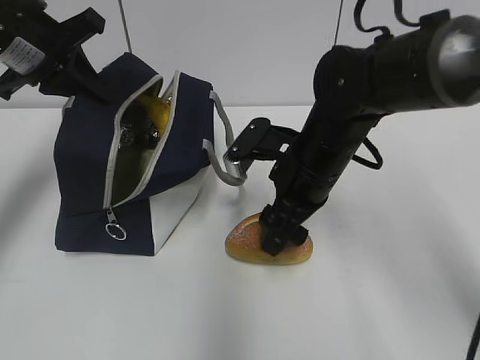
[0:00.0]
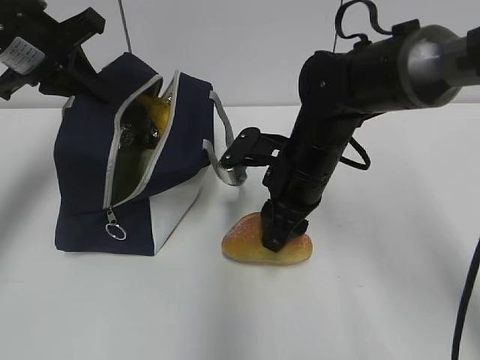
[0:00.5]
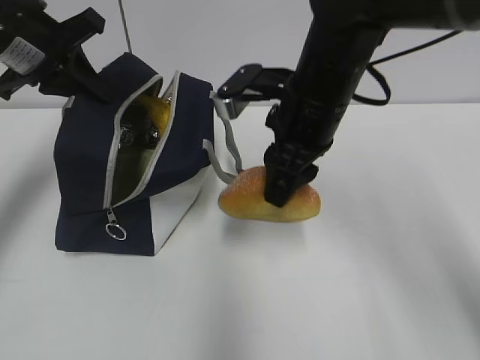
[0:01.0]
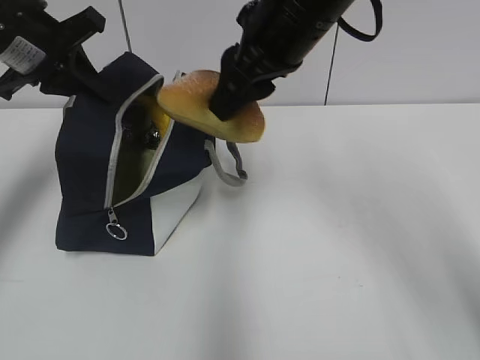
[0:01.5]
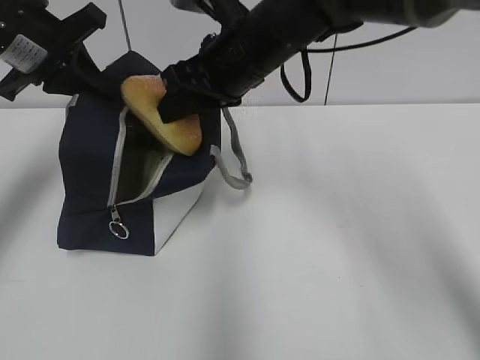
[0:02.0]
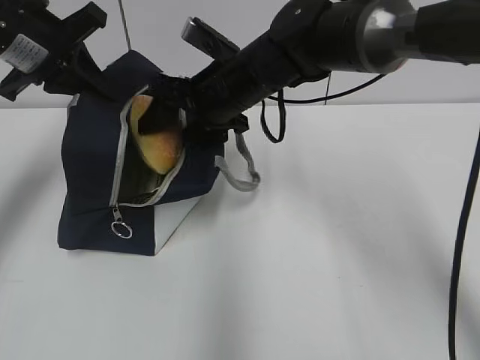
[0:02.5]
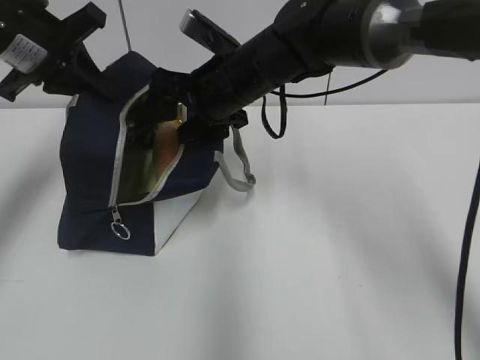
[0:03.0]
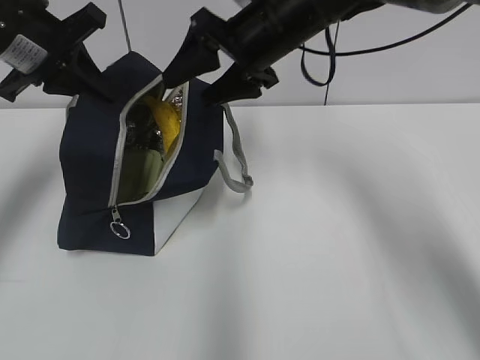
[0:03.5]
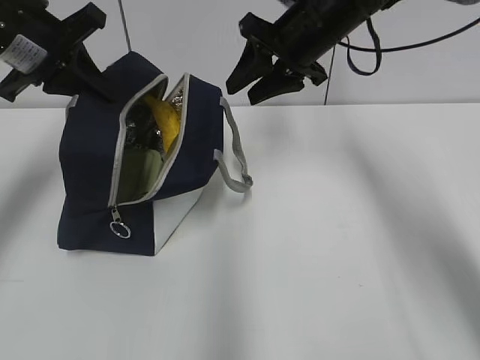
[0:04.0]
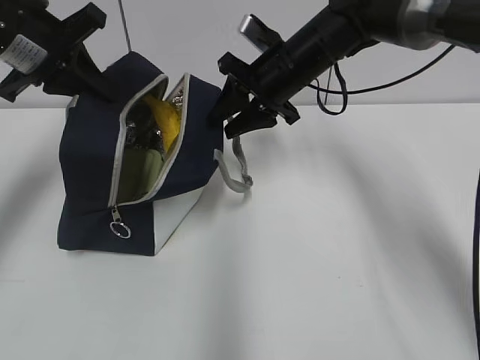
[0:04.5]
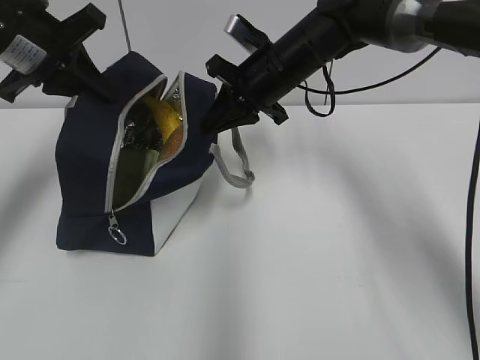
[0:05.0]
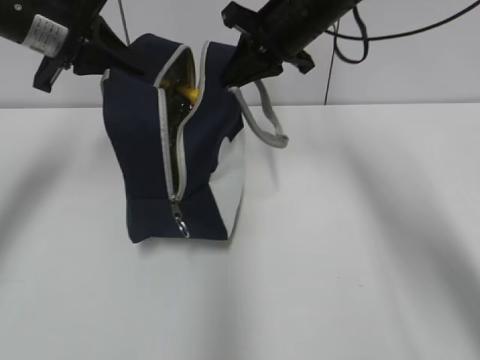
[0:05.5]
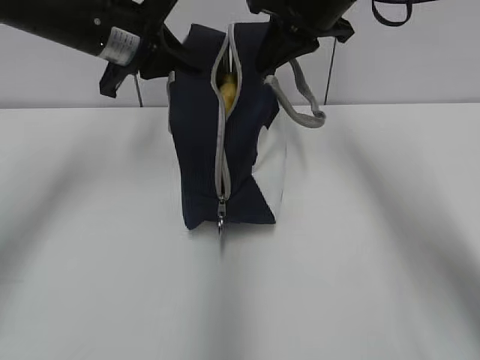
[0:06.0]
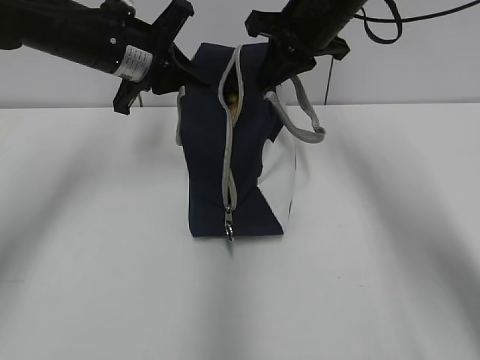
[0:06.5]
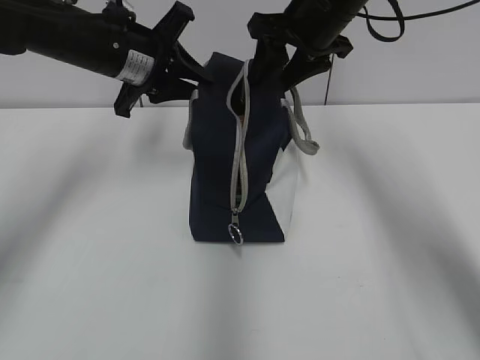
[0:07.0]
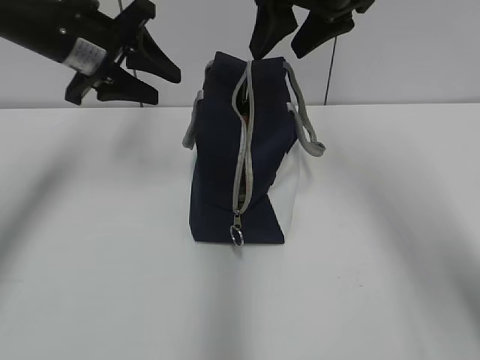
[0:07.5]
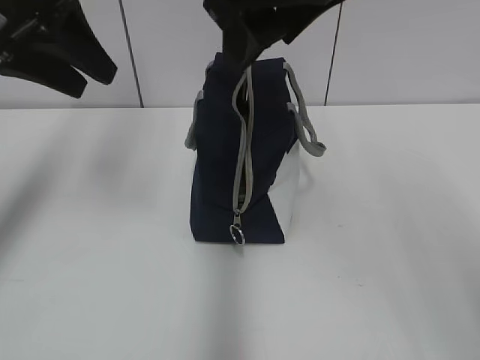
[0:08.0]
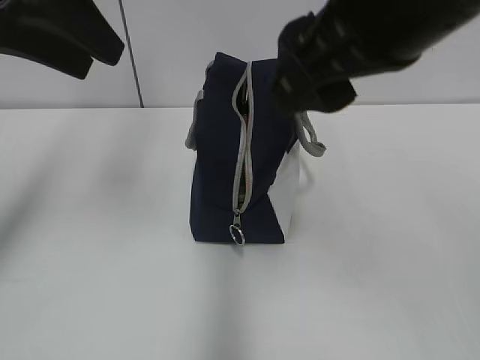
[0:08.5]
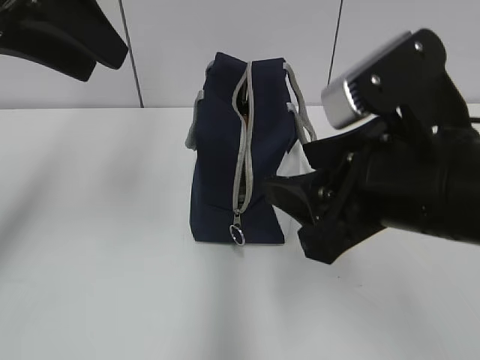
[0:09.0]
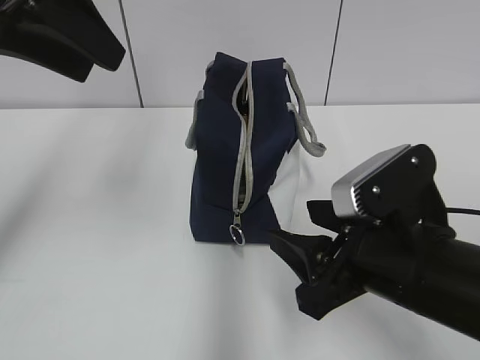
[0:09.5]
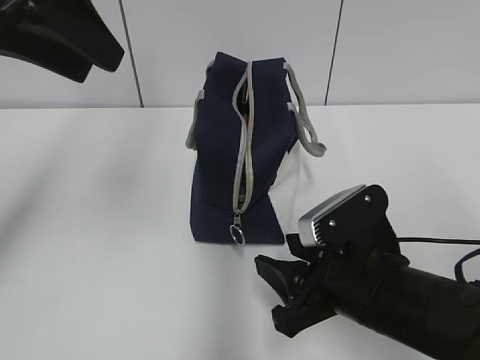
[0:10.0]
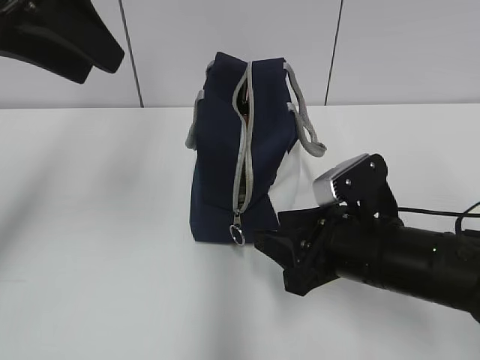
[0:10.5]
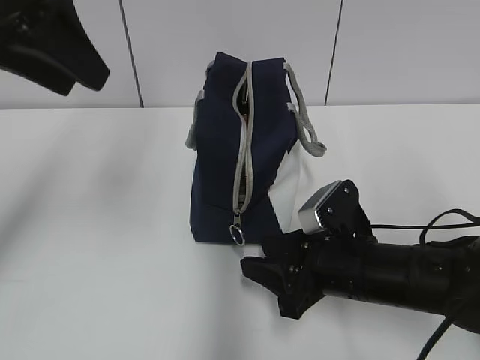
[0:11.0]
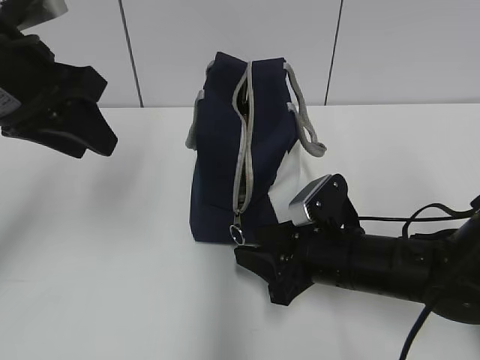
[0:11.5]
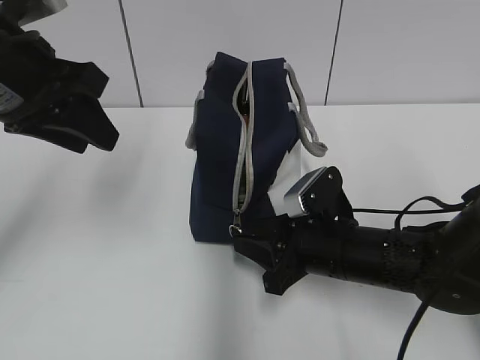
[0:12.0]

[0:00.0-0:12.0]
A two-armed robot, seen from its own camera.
0.0 to 2.0 s: The right gripper travels upward, to the left and forward by approximately 15 cm, and closes.
2.0 to 4.0 s: The right gripper shifts some 10 cm to the right and forward, and opens, then closes once more.
4.0 to 6.0 s: The right gripper is displaced upward by roughly 5 cm, and closes. Meanwhile the left gripper goes approximately 10 cm to the right.
6.0 to 8.0 s: The right gripper travels backward and upward by approximately 15 cm, and opens. Meanwhile the left gripper travels backward, upward and to the left by about 10 cm, and opens.
8.0 to 10.0 s: The left gripper changes place by roughly 5 cm. The right gripper goes about 25 cm downward.
10.0 to 12.0 s: The right gripper moves forward, approximately 10 cm, while the left gripper shifts approximately 10 cm downward.

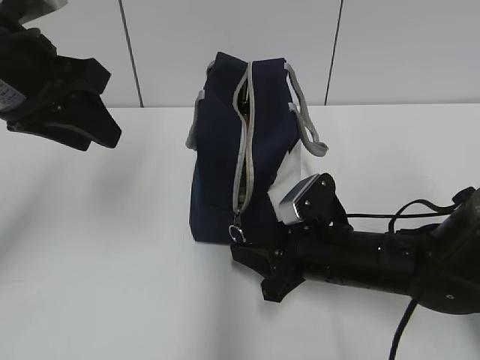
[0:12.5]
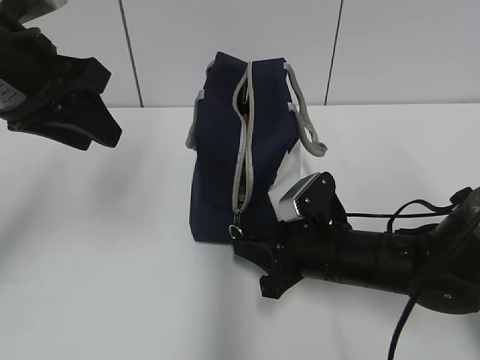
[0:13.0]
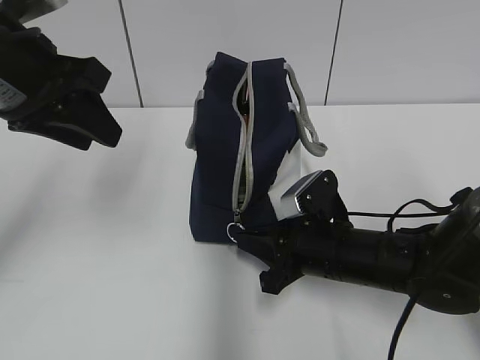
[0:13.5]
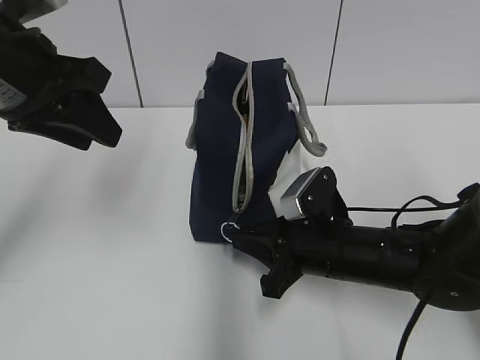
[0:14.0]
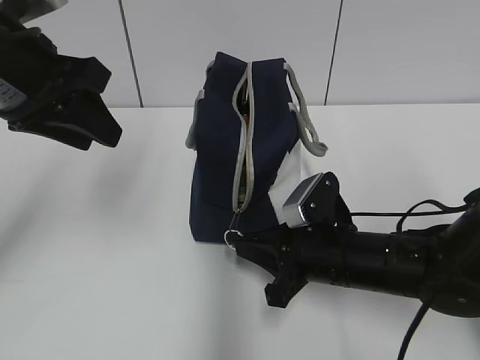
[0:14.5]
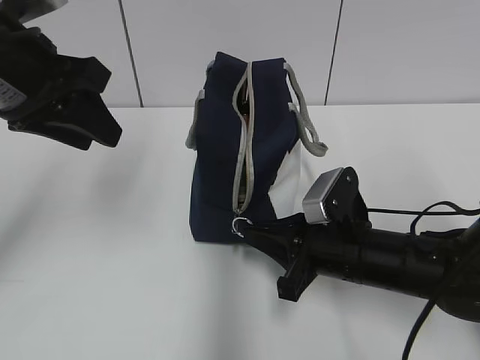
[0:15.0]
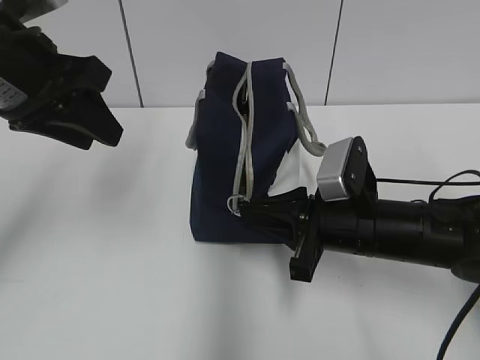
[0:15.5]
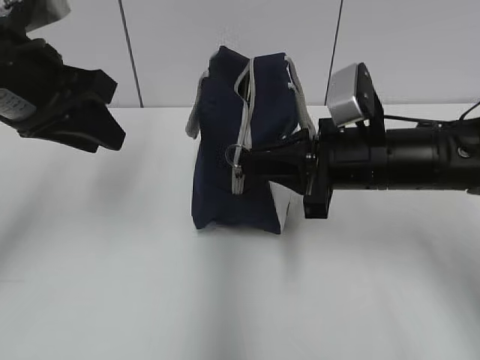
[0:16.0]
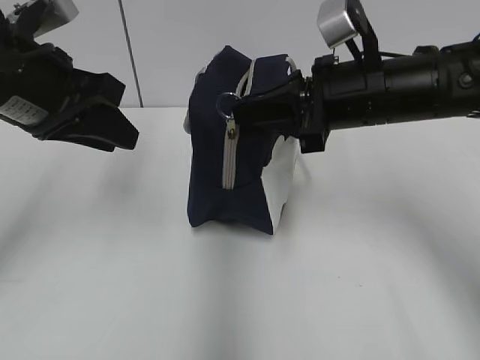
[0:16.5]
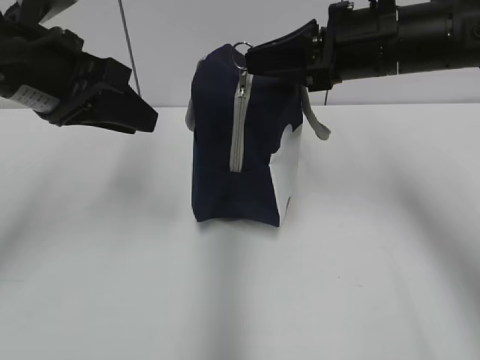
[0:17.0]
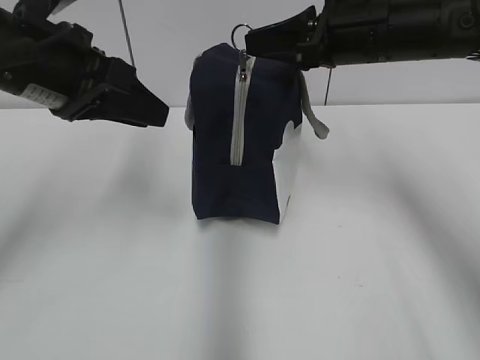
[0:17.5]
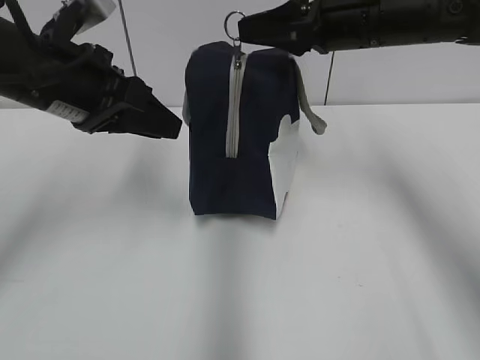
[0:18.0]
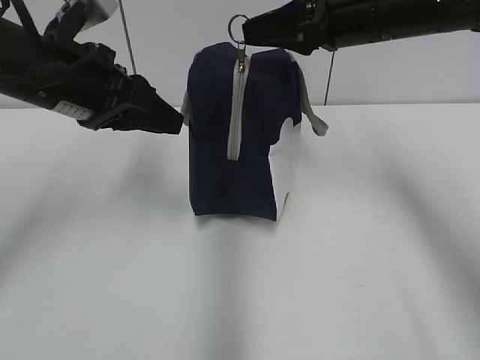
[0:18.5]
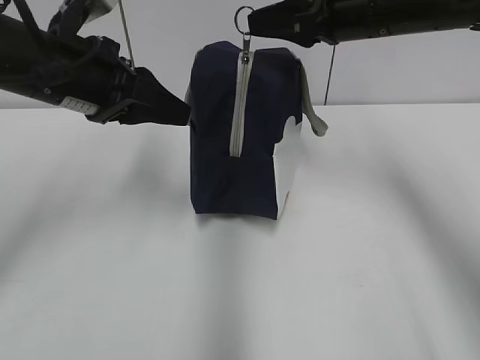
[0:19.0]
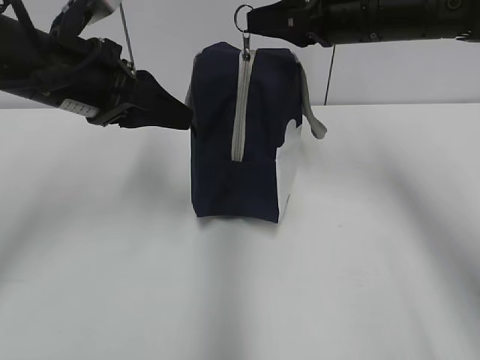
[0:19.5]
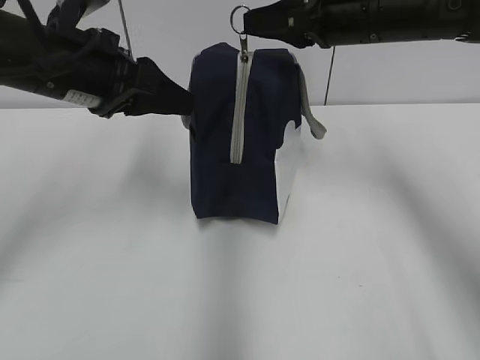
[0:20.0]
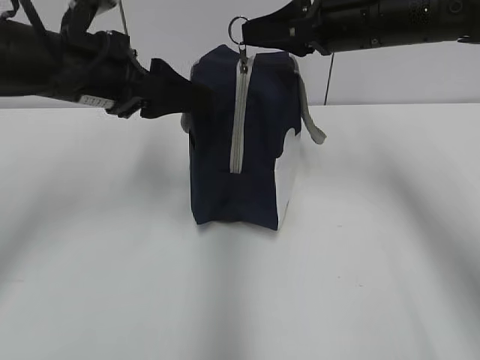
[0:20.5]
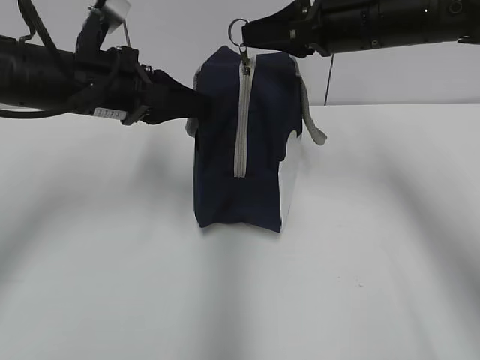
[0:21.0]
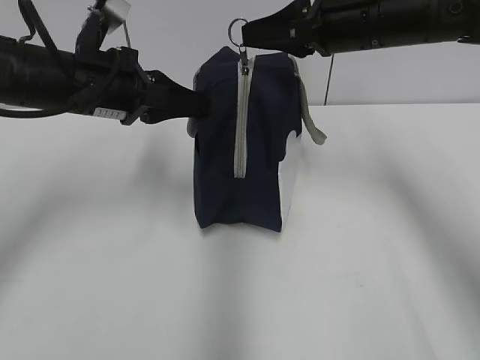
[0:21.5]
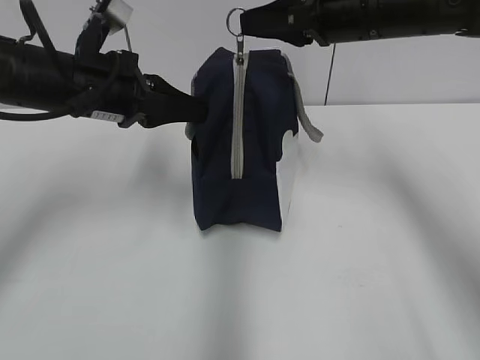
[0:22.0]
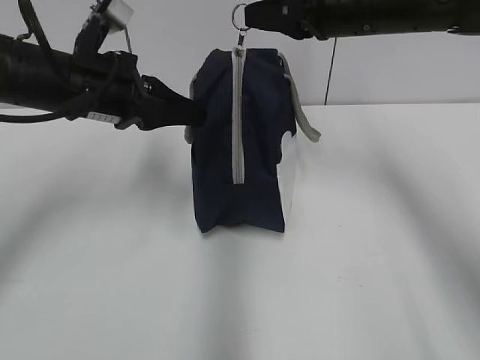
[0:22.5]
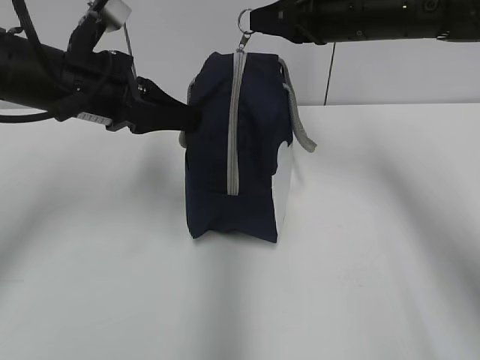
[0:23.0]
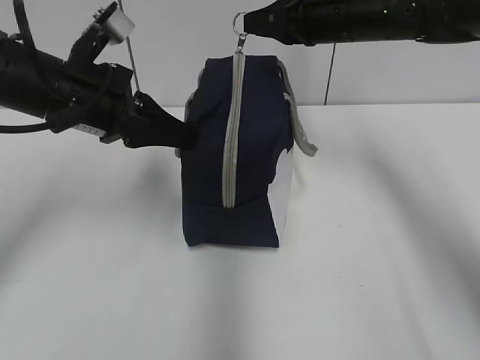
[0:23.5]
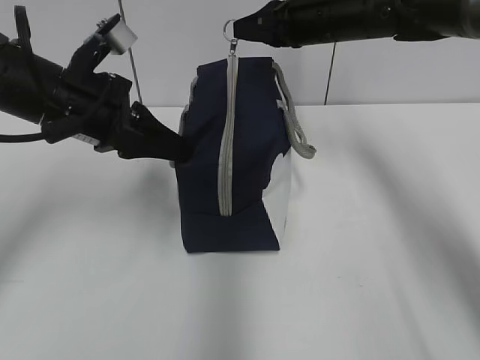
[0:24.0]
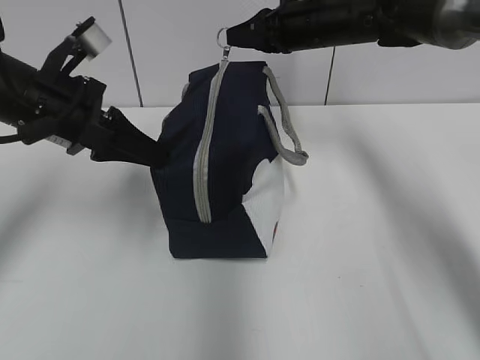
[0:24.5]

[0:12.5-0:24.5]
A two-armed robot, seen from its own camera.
12.5 to 14.5 s: The right gripper closes its fingers.
14.5 to 16.5 s: The right gripper goes some 15 cm upward.
16.5 to 18.5 s: The right gripper shifts roughly 5 cm upward.
18.5 to 20.5 s: The left gripper opens up.
20.5 to 22.5 s: The left gripper closes its fingers.
22.5 to 24.5 s: The right gripper moves forward and downward, about 10 cm.

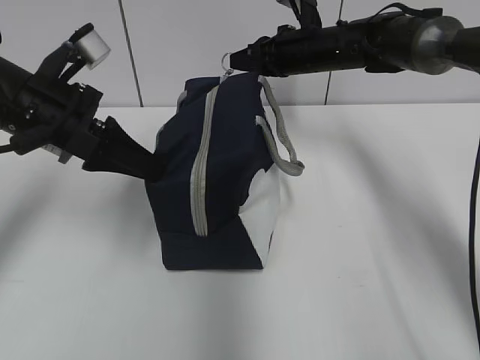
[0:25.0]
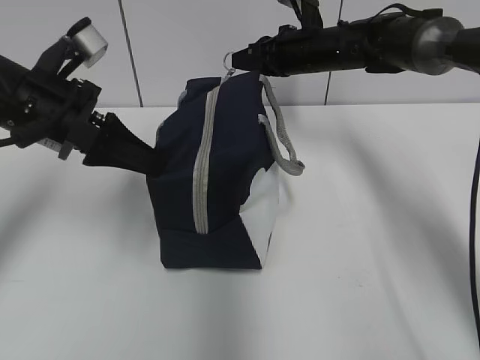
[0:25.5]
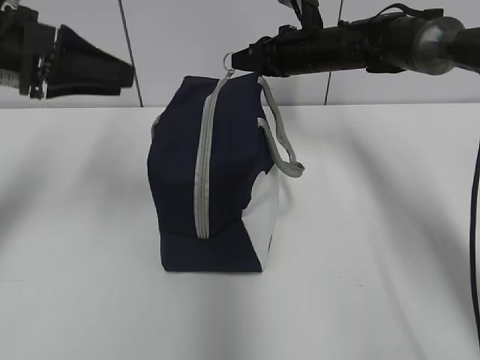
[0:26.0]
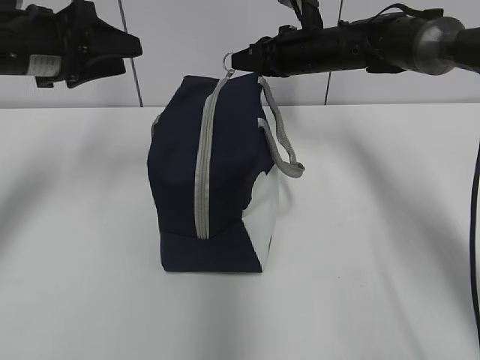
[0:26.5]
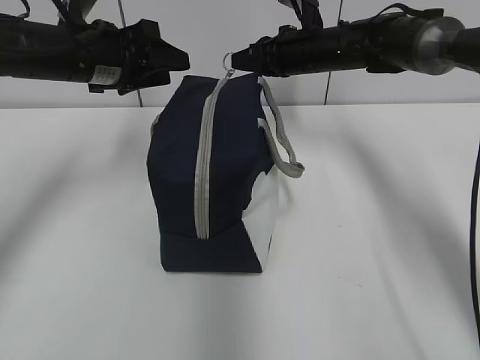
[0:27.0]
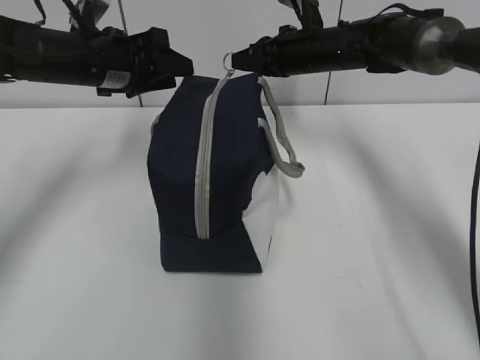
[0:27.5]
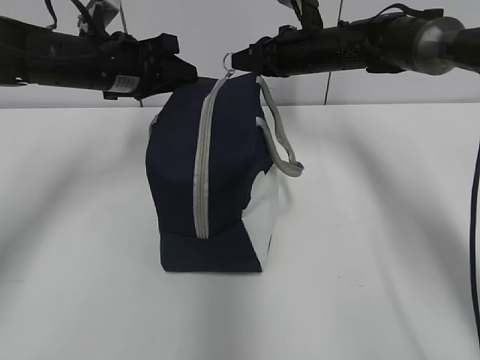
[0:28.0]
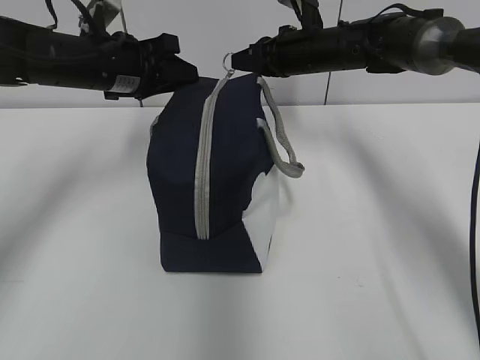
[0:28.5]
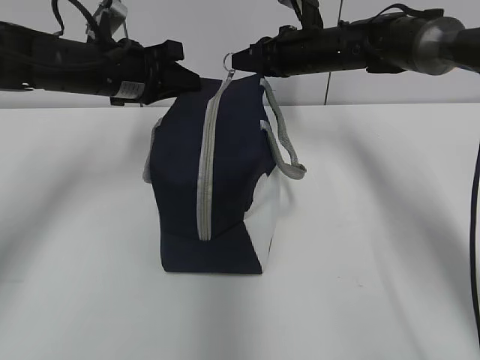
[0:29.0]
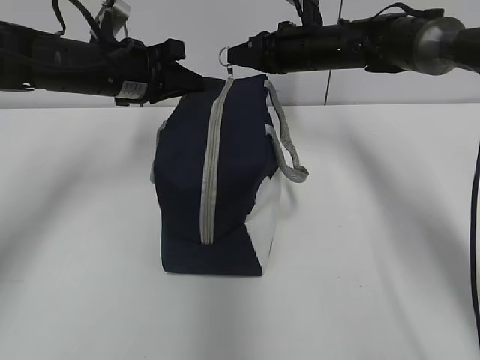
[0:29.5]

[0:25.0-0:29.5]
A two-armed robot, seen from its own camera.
25.0 to 27.0 s: The left gripper shifts about 10 cm forward, and opens.
27.0 to 29.5 s: The left gripper closes.
